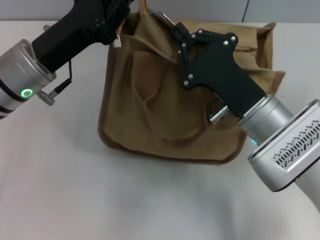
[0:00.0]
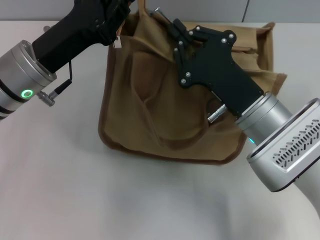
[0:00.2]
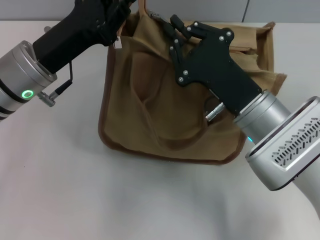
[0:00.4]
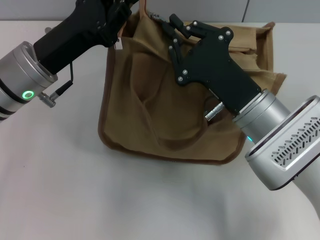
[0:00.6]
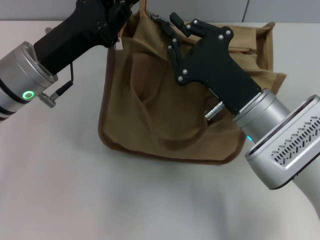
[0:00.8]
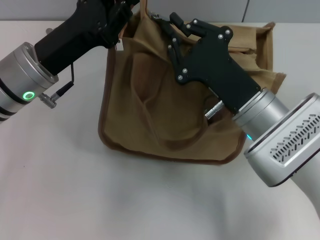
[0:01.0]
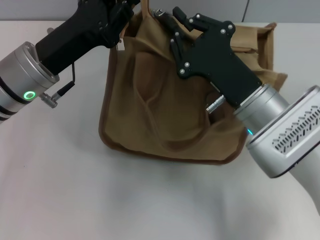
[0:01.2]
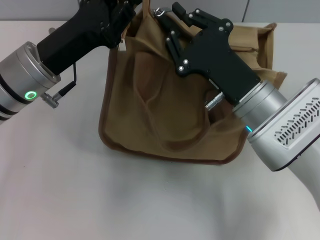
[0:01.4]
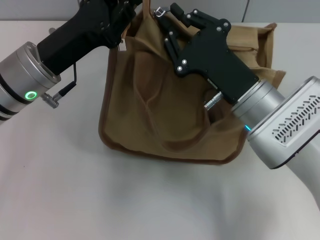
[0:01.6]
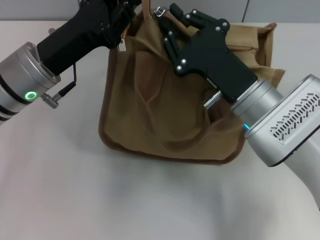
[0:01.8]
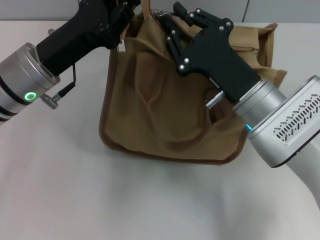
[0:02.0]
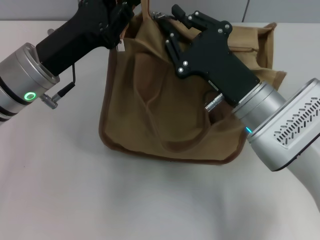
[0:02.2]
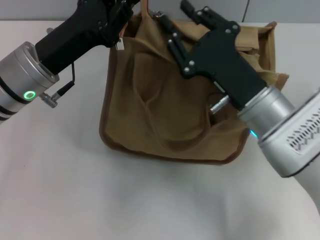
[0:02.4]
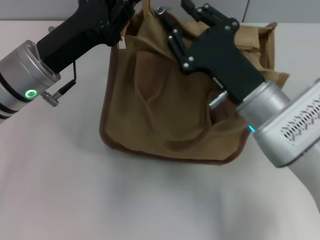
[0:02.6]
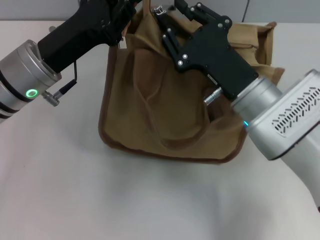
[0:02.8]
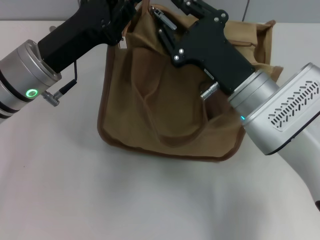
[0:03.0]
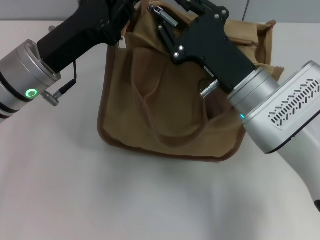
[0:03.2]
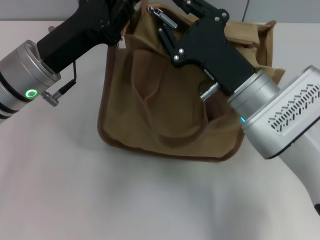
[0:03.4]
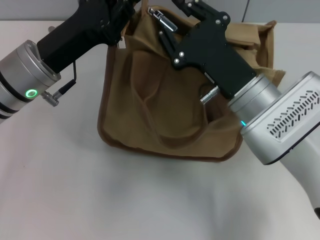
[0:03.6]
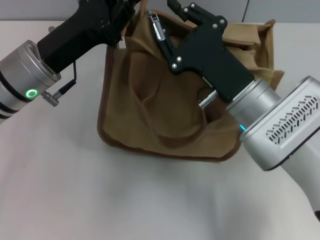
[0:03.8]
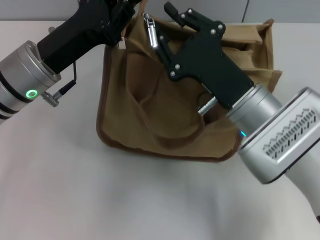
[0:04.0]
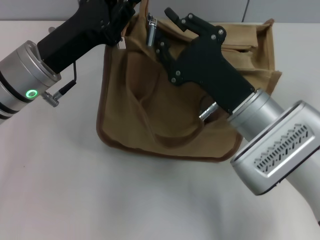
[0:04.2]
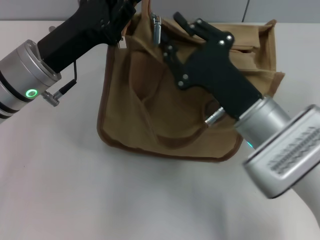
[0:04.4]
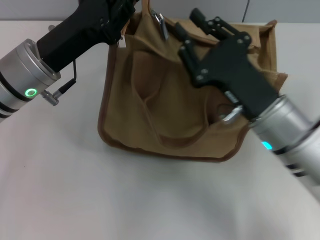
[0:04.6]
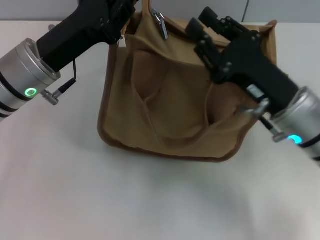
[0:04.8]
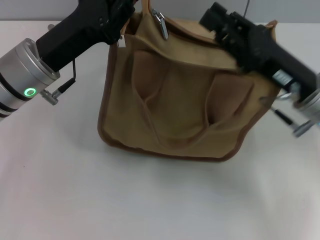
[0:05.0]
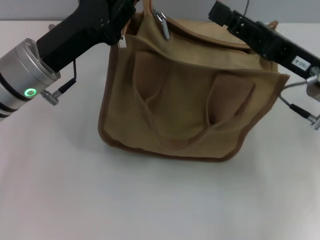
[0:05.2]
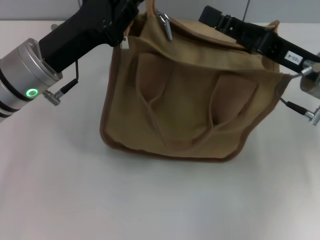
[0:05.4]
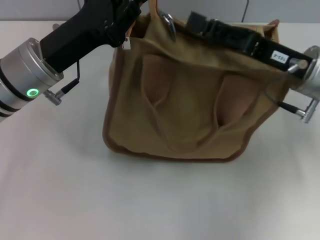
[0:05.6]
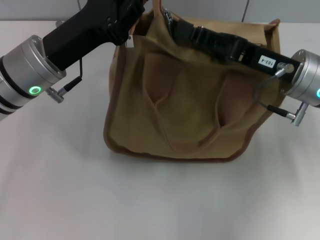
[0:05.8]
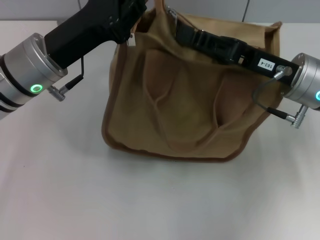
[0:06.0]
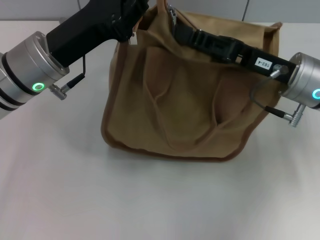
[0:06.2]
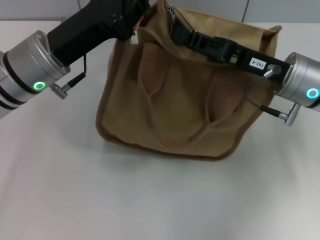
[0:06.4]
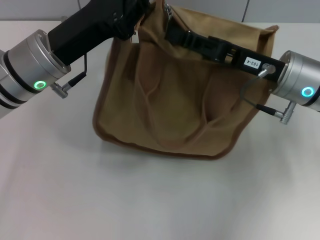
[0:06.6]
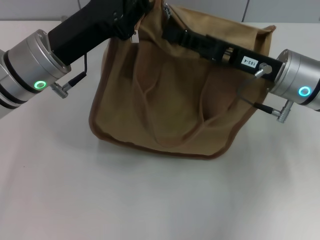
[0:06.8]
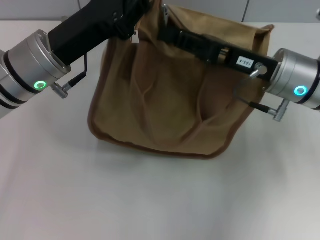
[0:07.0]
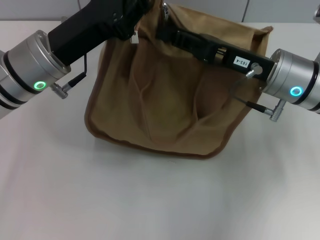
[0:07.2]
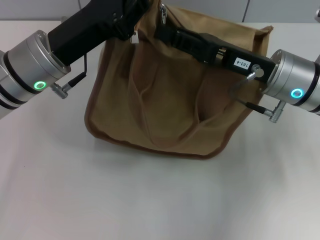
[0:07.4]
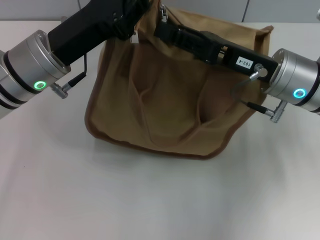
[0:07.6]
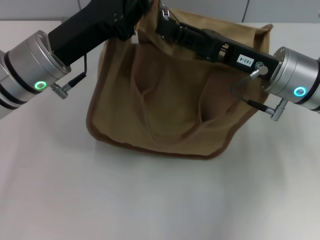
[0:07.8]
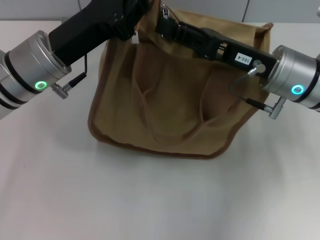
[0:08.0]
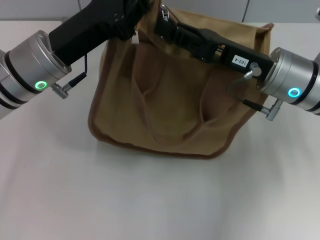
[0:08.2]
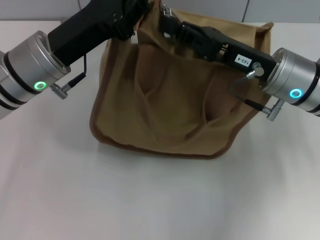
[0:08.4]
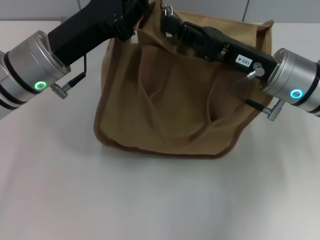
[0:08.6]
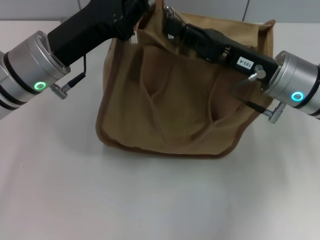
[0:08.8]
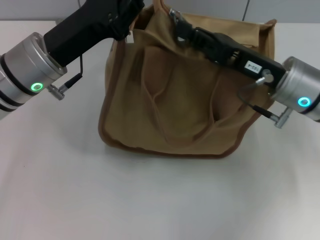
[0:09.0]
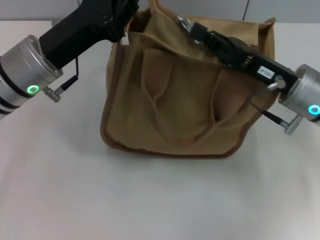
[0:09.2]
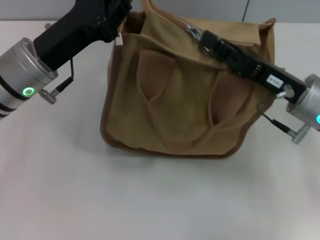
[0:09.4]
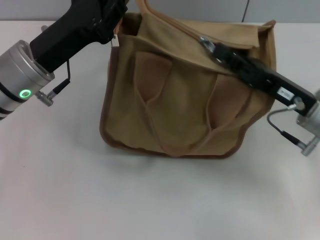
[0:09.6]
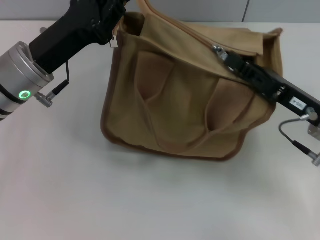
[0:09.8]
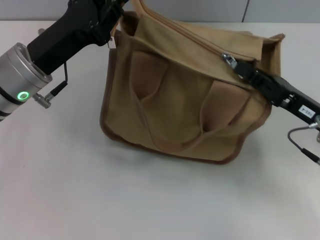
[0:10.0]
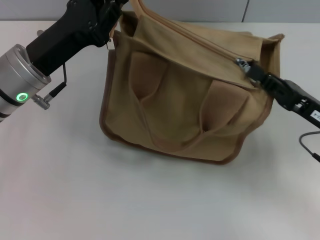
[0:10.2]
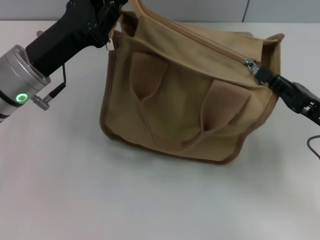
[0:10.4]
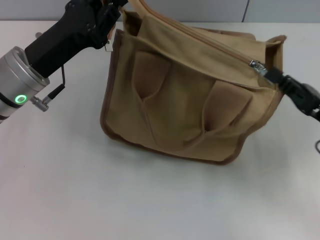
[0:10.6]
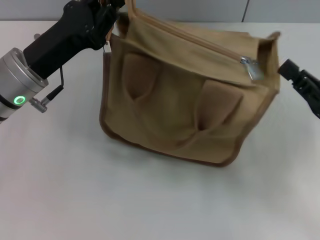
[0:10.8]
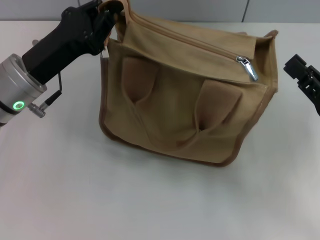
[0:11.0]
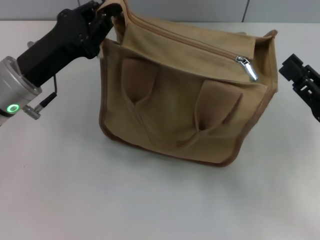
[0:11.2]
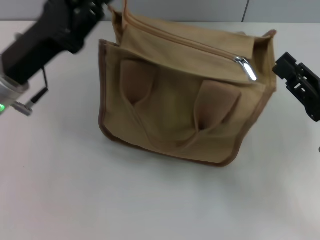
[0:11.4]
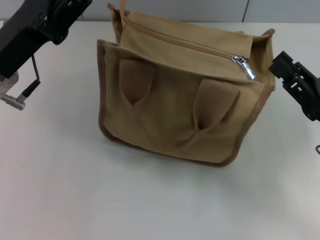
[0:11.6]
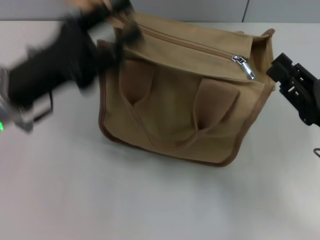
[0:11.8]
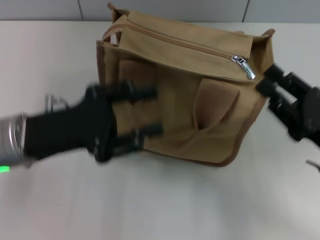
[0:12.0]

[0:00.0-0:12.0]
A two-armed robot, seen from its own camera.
Step, 0:00.0 to 0:10.6: Pull up the zipper with your right hand.
Step, 0:10.8 to 0:11.4: Grab the zipper with your left hand.
0:00.0 to 0:01.6: There are only small adjustments of the grippers.
0:01.6 to 0:03.0: Both grippers stay put.
0:03.0 to 0:04.4: The grippers stay close to where they were, moving slightly.
0:04.4 to 0:06.0: The right gripper moves to the right and forward, approximately 10 cm.
0:06.0 to 0:07.6: There are only small adjustments of the grippers.
0:07.6 to 0:09.0: The right gripper closes.
0:09.0 to 0:10.4: The right gripper shifts some 10 cm to the right and backward.
0:10.4 to 0:12.0: The left gripper moves backward, roughly 5 cm, and opens its fingers; the right gripper opens its fingers.

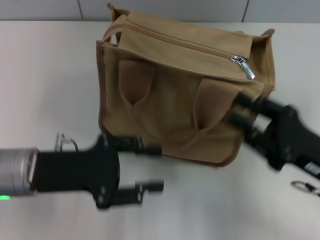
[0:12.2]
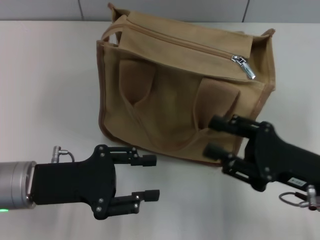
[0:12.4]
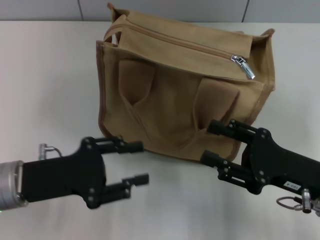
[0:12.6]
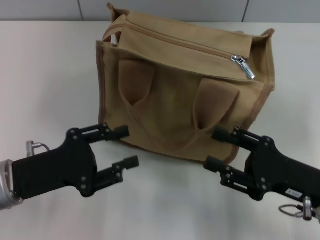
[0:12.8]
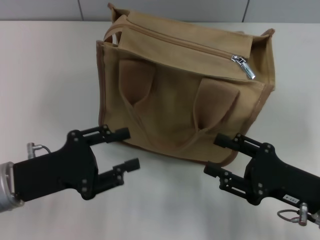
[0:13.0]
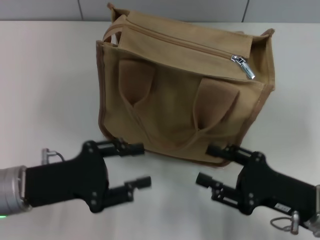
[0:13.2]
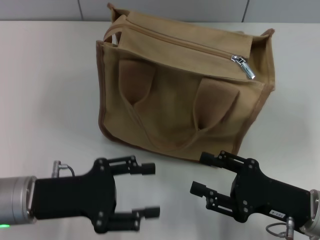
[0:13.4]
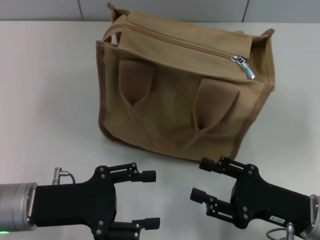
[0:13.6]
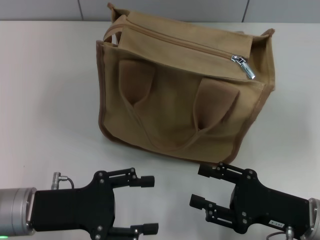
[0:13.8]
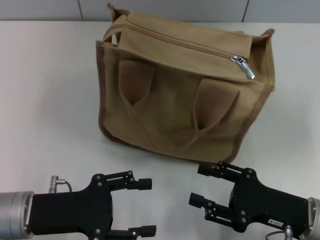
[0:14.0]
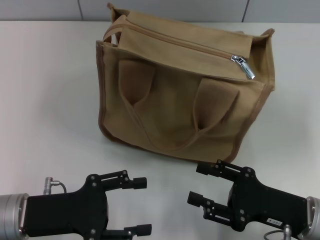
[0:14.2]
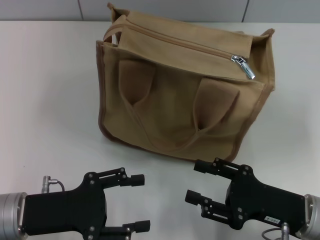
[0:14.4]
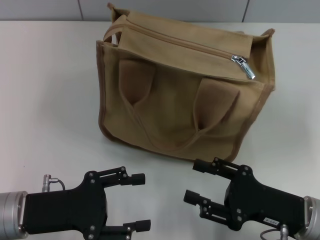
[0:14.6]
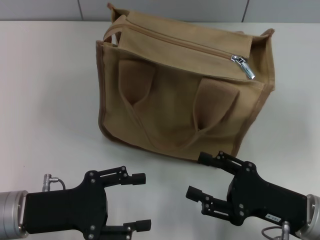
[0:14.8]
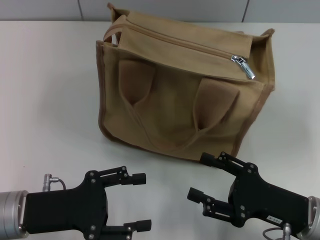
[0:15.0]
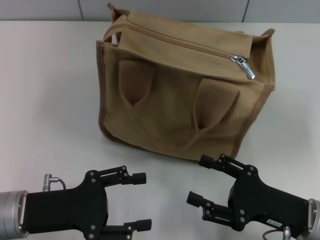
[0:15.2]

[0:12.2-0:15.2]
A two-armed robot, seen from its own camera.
0:12.2 to 0:13.8: The right gripper ends up about 5 cm from where it was, and opens its fingers.
0:13.8 to 0:15.2: The grippers make only small movements.

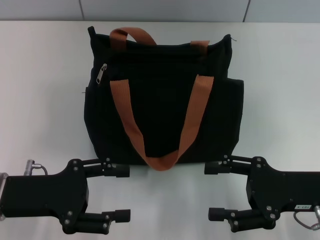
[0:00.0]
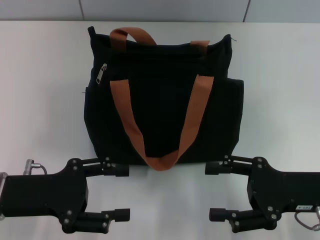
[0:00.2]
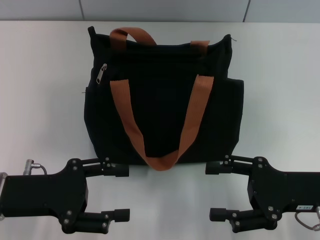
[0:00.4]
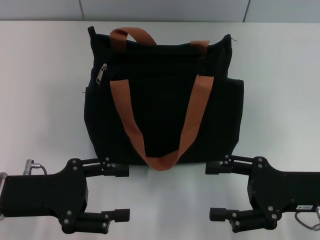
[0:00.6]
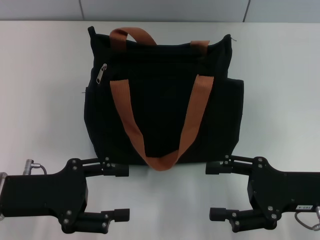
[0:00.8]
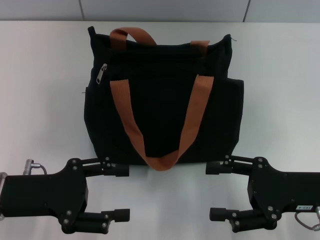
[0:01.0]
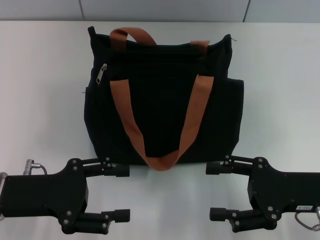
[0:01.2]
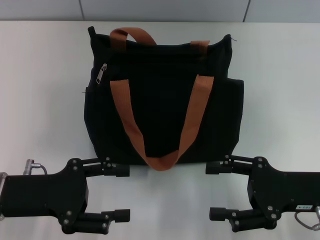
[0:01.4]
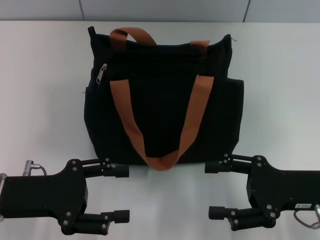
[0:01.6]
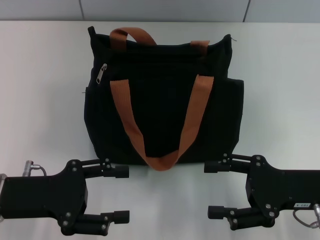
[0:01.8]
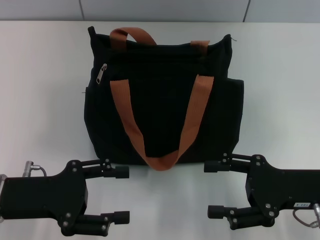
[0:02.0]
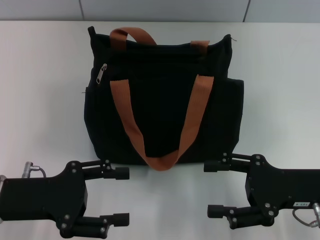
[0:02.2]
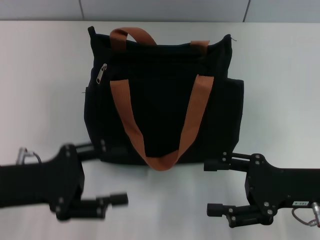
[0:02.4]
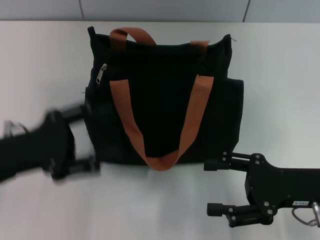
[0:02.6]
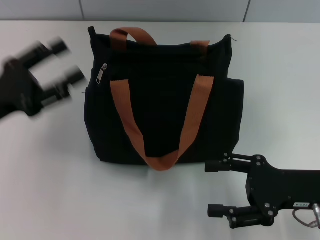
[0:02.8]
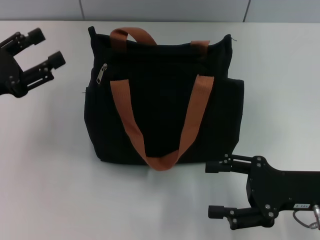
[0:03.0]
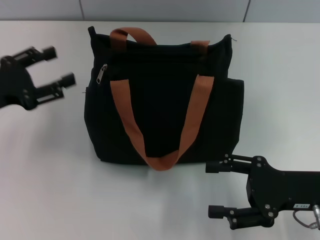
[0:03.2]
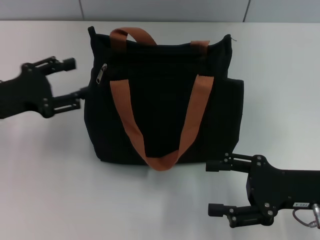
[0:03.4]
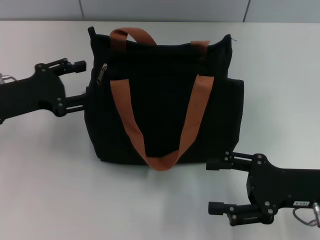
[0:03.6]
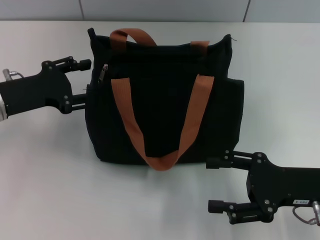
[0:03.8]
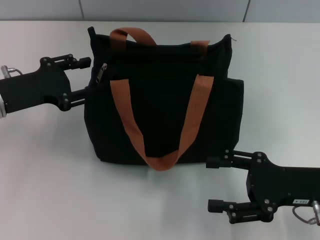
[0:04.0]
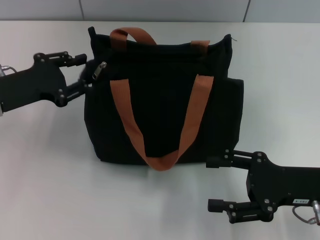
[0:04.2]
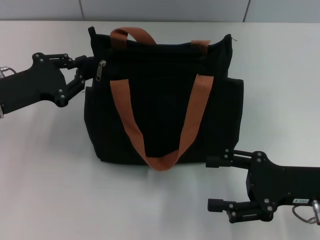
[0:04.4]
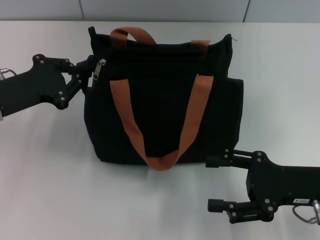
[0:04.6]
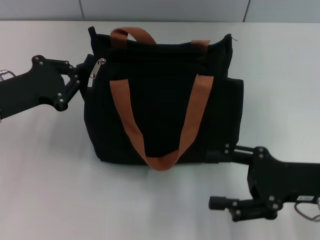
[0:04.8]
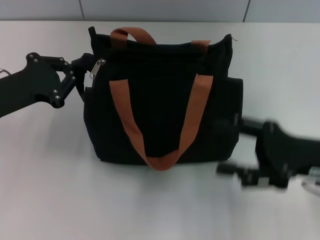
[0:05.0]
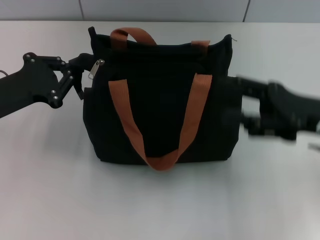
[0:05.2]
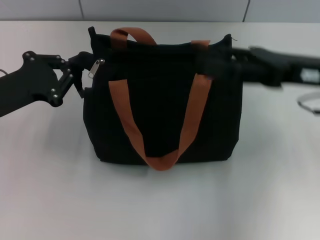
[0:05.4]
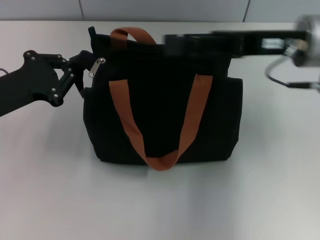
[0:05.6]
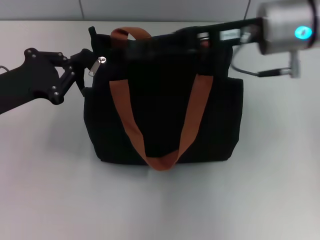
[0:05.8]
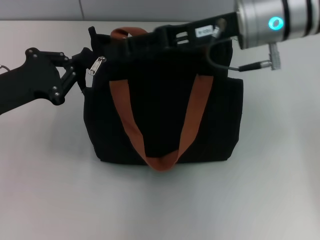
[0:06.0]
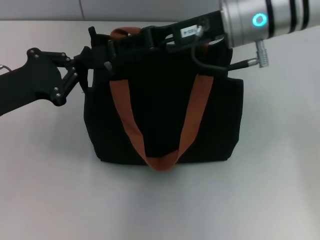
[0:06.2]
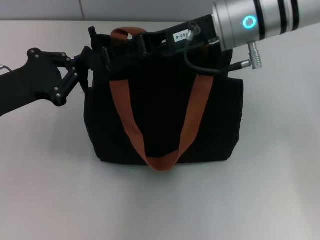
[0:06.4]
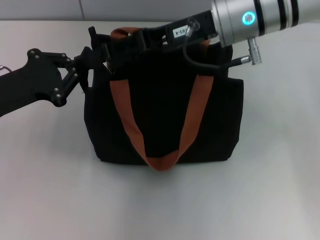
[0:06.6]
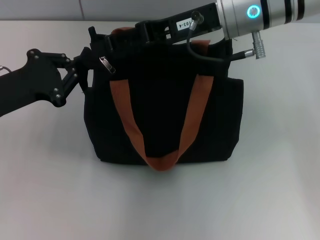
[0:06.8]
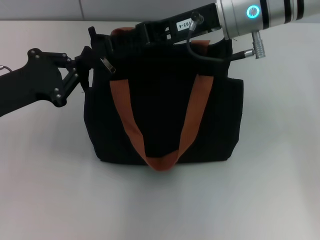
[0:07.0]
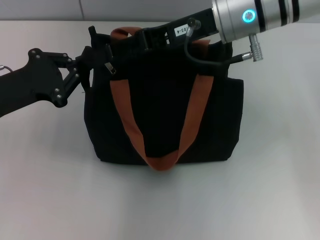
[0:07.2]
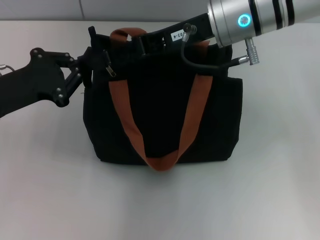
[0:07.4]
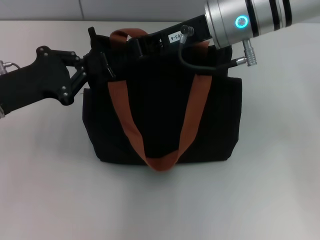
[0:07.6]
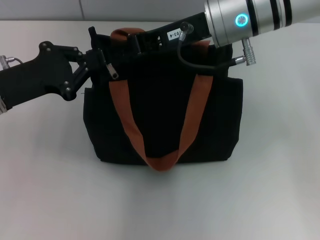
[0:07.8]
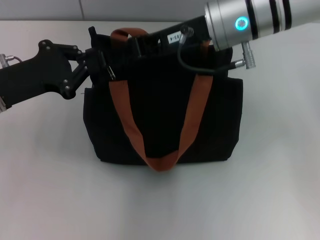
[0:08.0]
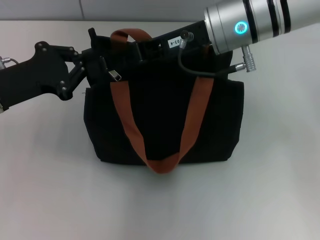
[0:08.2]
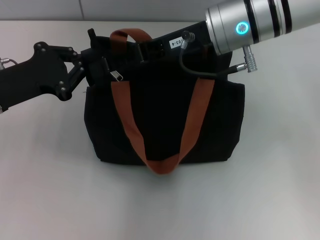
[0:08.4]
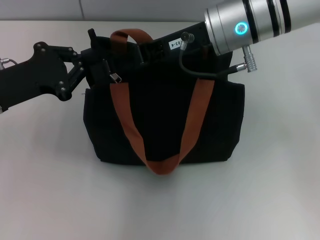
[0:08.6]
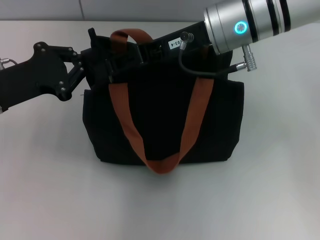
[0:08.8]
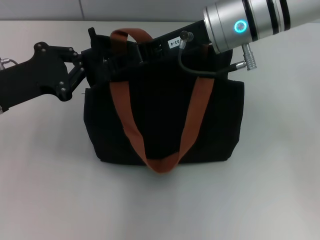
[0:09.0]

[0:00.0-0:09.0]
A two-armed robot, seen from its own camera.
0:00.0 to 0:01.6: Both grippers stay about where they are.
0:01.6 to 0:03.0: The left gripper travels forward and to the left by approximately 10 cm.
0:03.0 to 0:04.4: The left gripper changes place by roughly 5 cm.
0:04.4 to 0:06.0: The right gripper shifts roughly 25 cm forward, upward and to the left. Meanwhile the left gripper closes up.
0:06.0 to 0:07.6: The grippers move only a little.
0:07.6 to 0:09.0: The right gripper closes.
